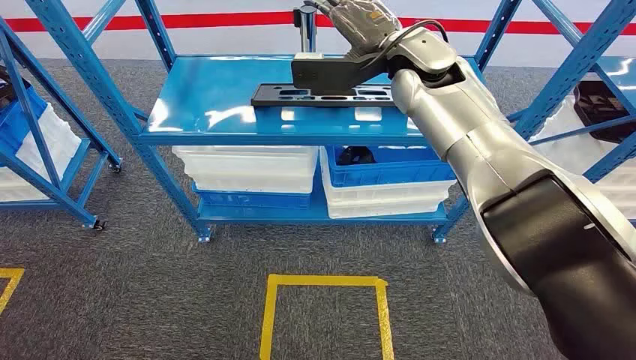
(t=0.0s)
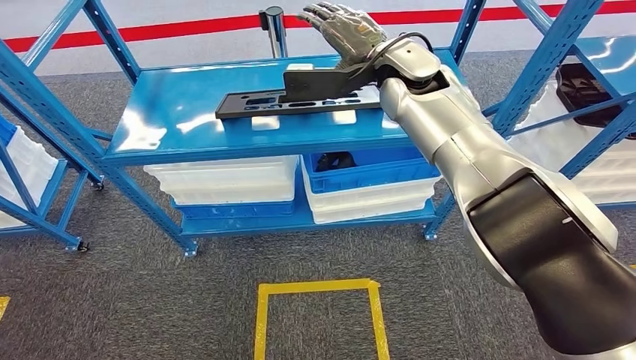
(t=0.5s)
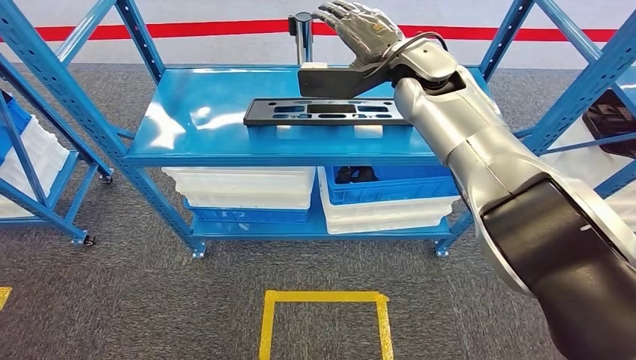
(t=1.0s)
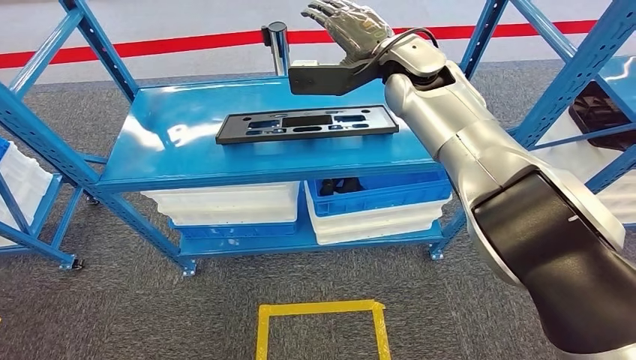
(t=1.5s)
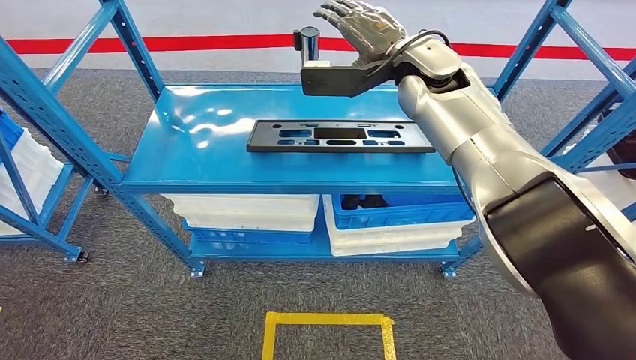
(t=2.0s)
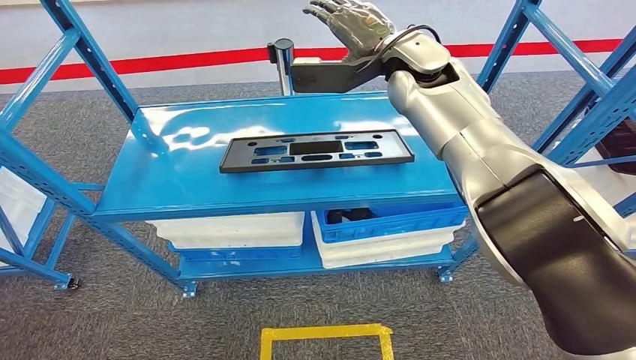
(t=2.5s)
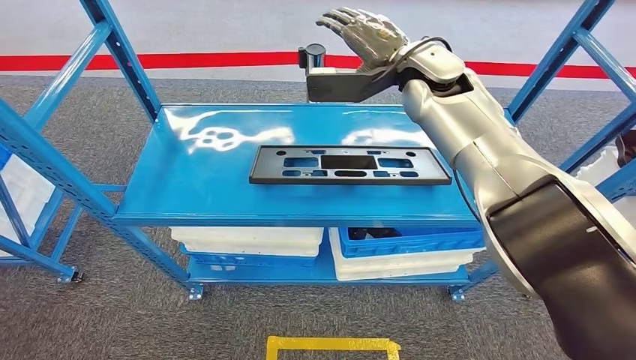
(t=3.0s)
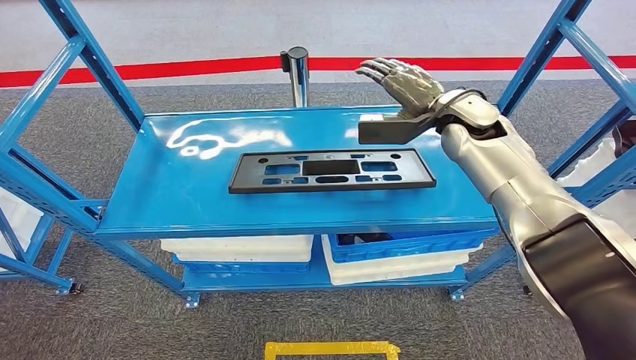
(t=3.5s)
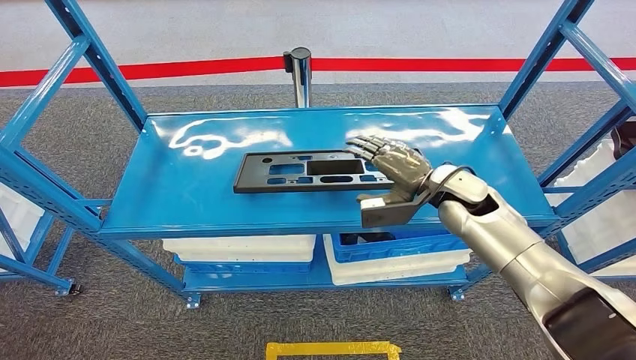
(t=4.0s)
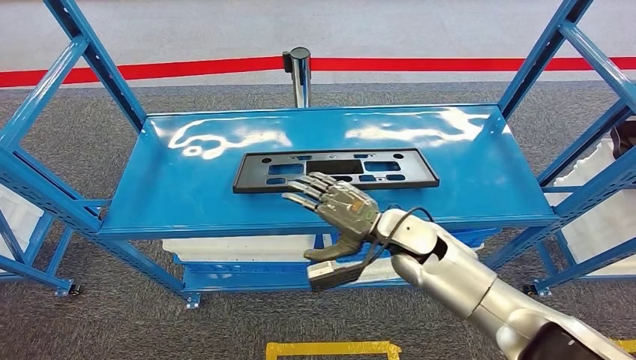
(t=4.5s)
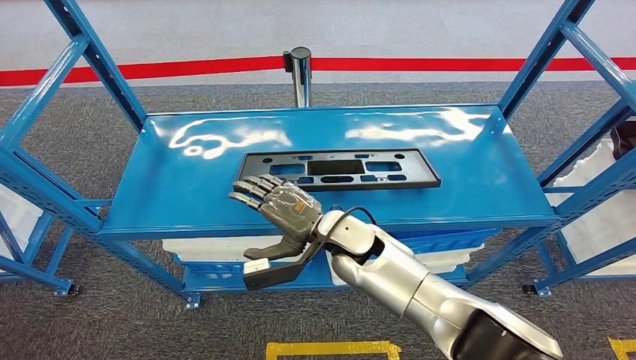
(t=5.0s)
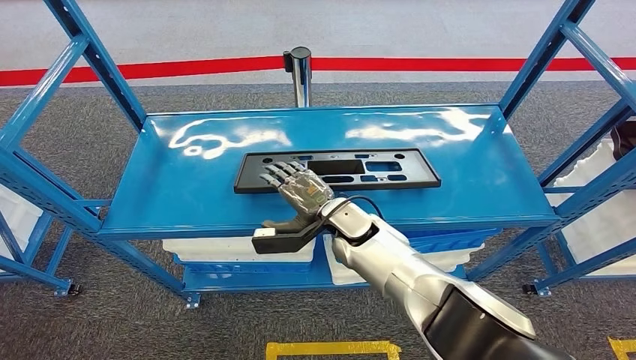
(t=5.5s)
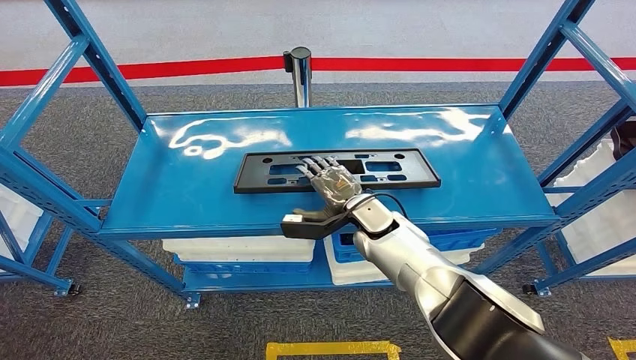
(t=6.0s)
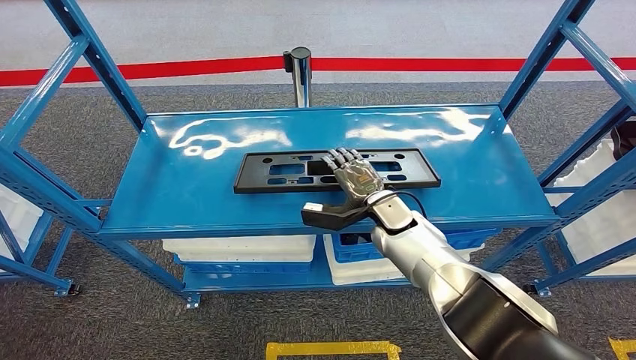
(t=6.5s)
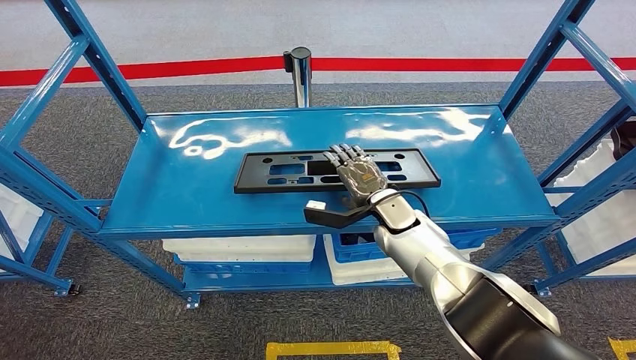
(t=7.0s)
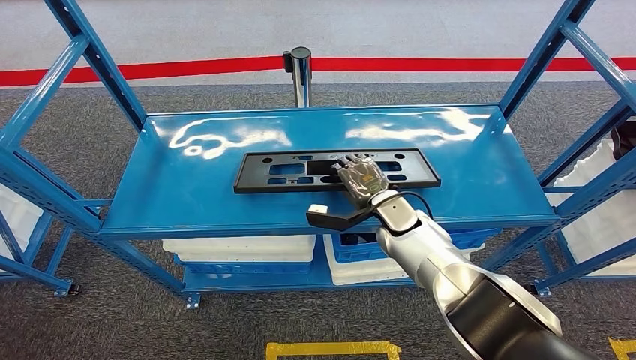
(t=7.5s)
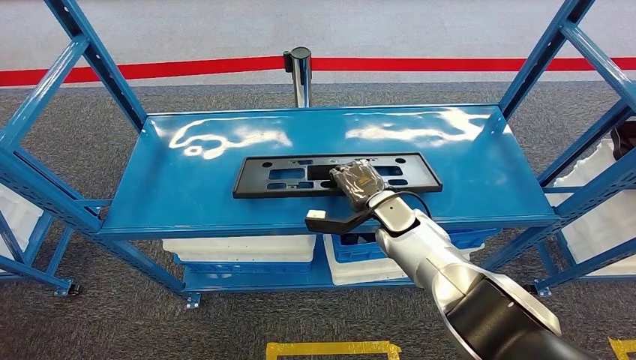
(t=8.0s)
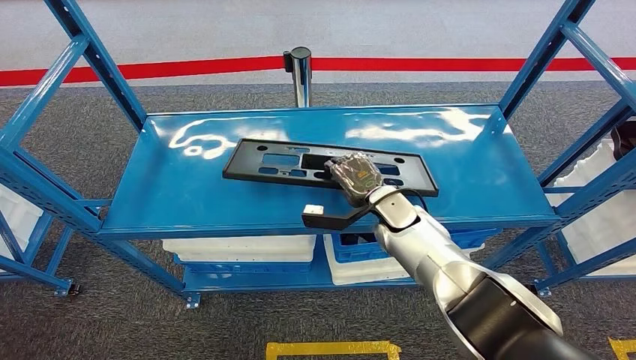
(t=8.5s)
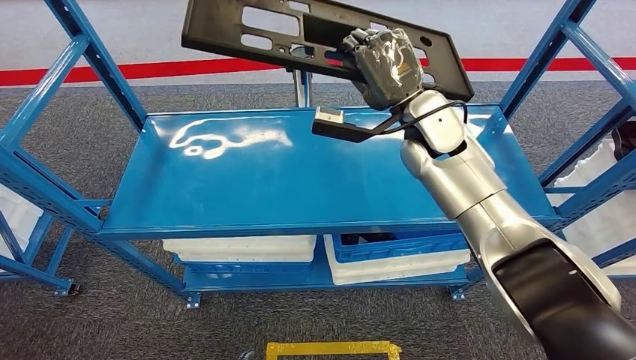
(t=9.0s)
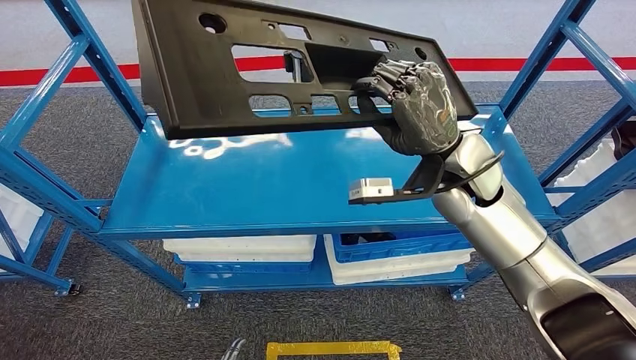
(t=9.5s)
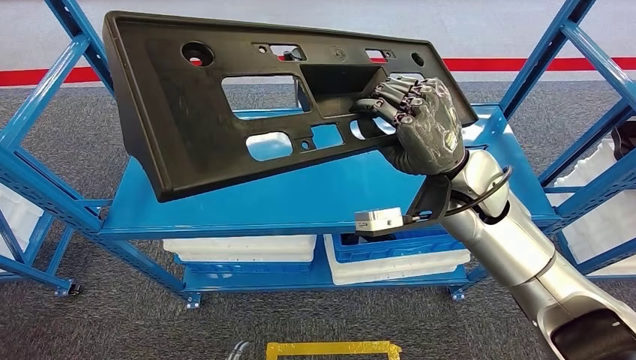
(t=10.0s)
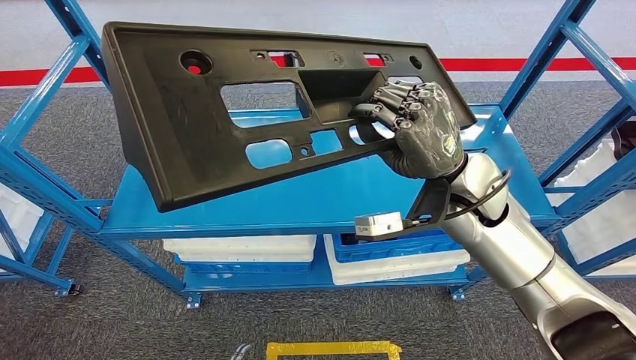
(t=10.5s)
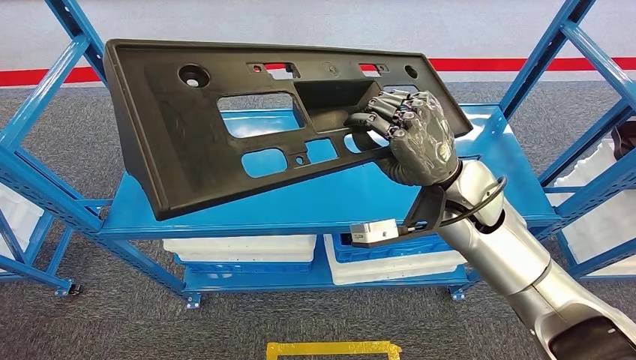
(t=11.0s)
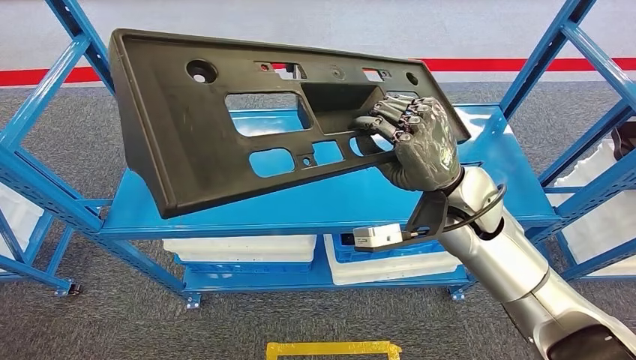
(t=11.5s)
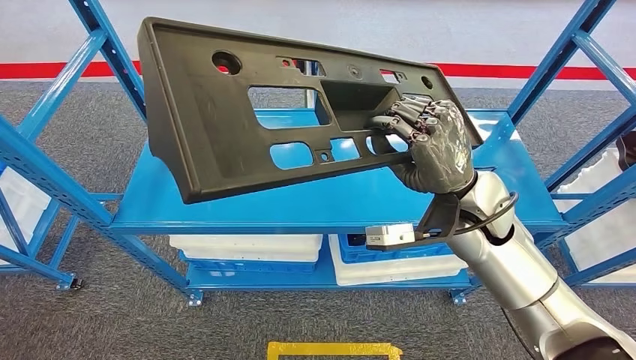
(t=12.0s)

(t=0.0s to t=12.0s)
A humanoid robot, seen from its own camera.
Step, t=0.0s - t=9.0s: Pick up the large material from the shelf.
t=4.0s - t=6.0s: The right hand shifts about 15 cm to the left and downward.
t=6.0s - t=8.0s: The right hand ends up approximately 5 cm from where it was.

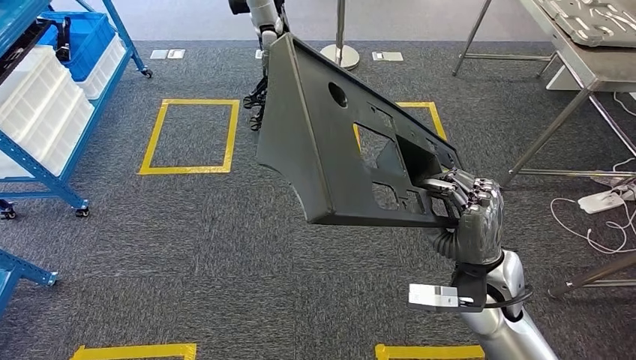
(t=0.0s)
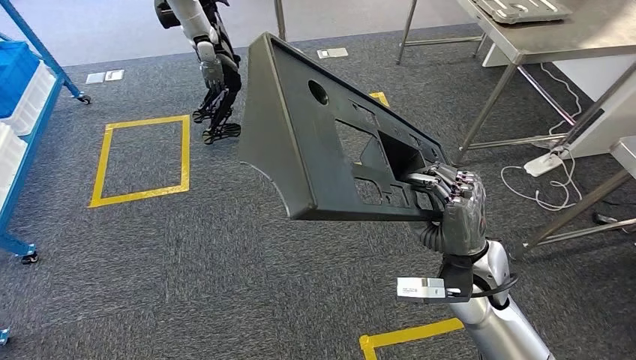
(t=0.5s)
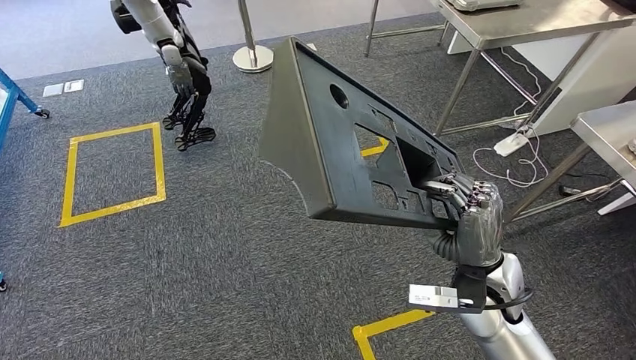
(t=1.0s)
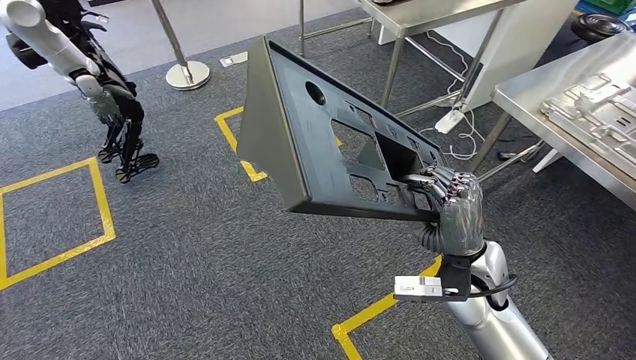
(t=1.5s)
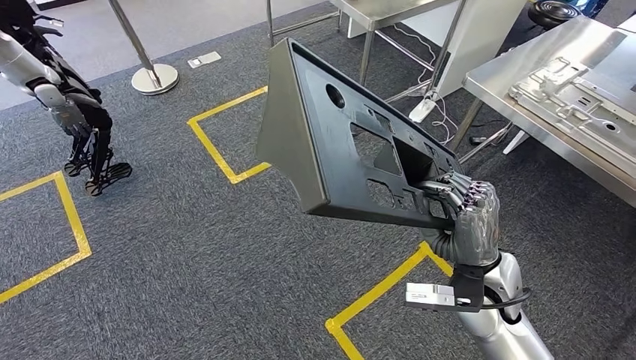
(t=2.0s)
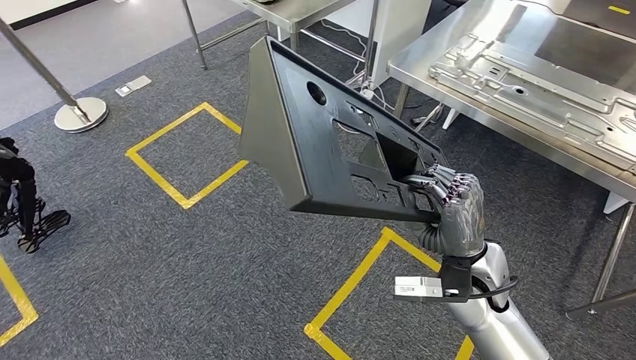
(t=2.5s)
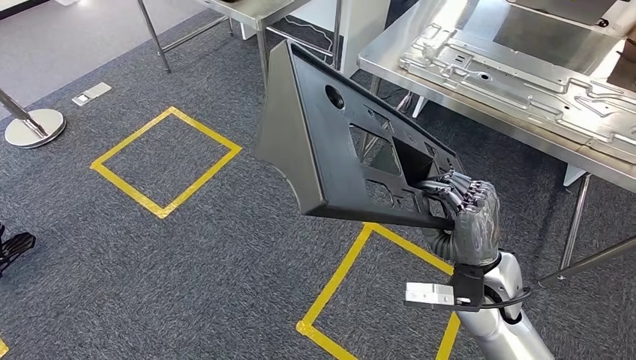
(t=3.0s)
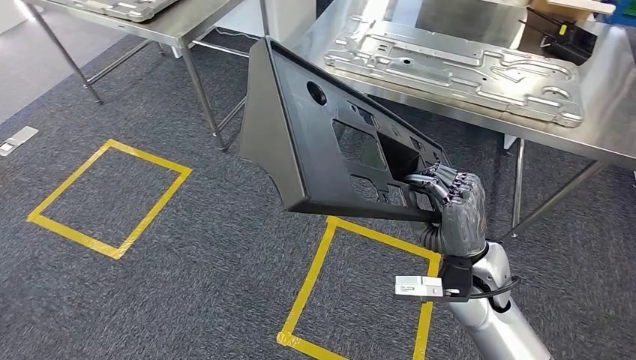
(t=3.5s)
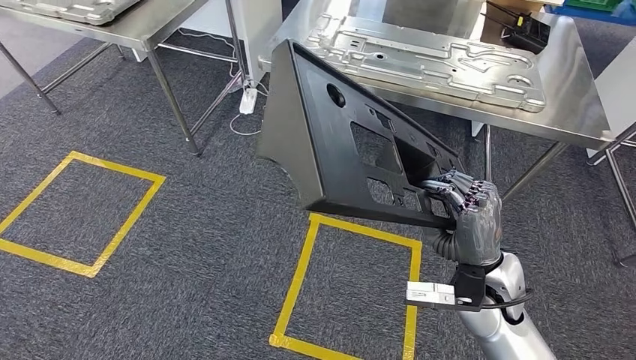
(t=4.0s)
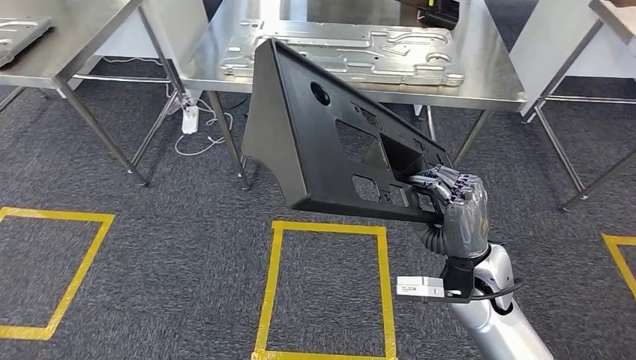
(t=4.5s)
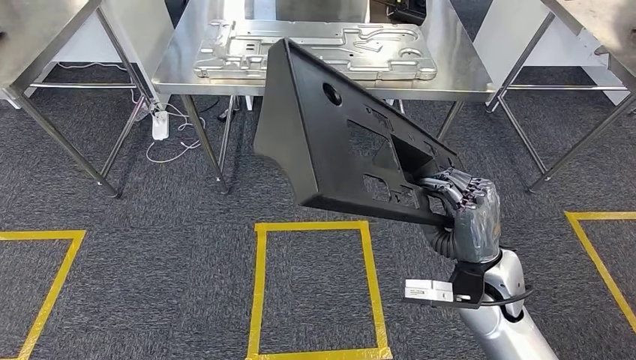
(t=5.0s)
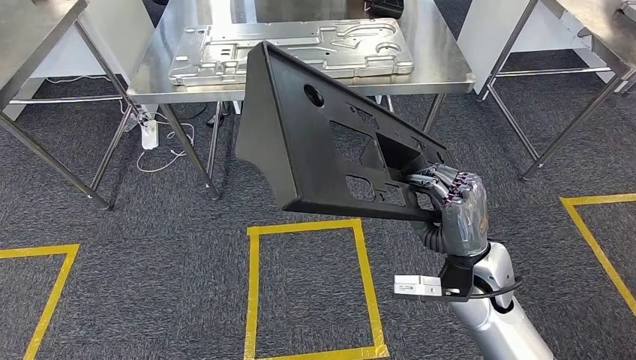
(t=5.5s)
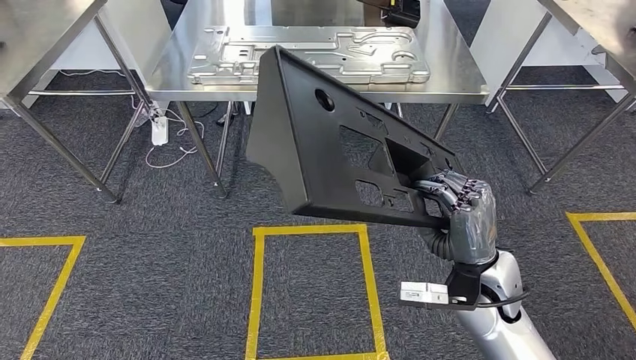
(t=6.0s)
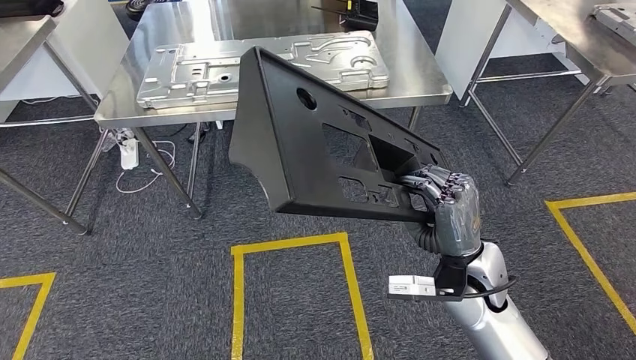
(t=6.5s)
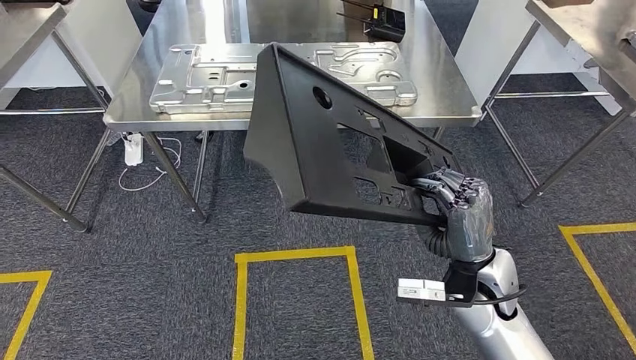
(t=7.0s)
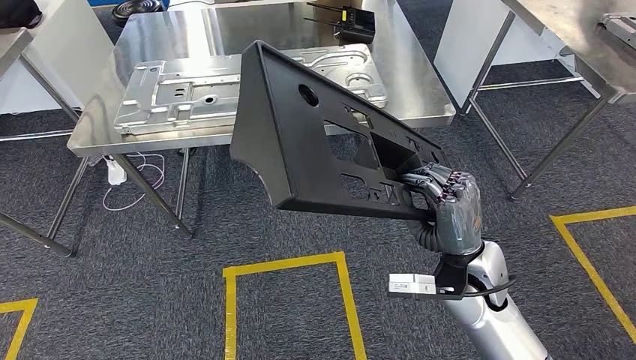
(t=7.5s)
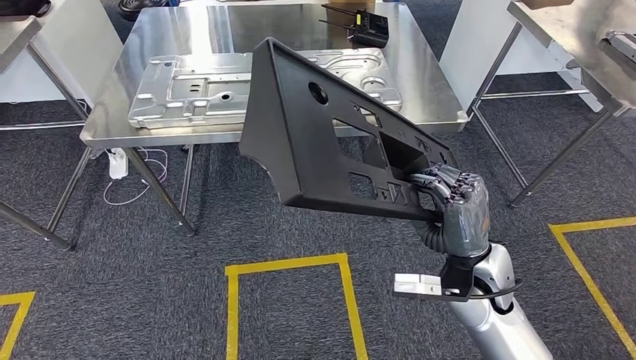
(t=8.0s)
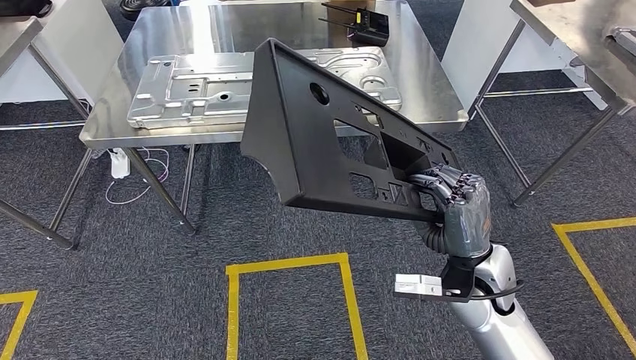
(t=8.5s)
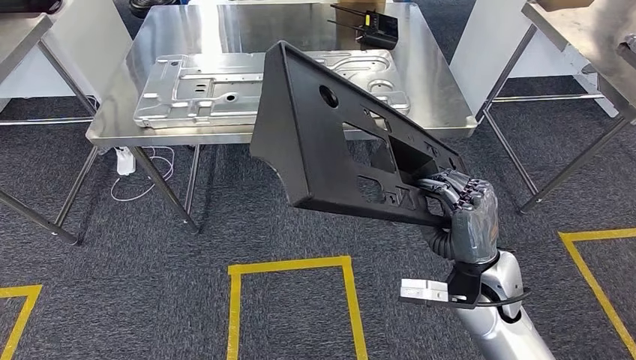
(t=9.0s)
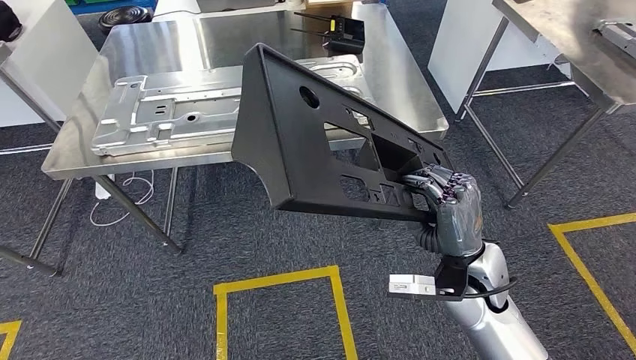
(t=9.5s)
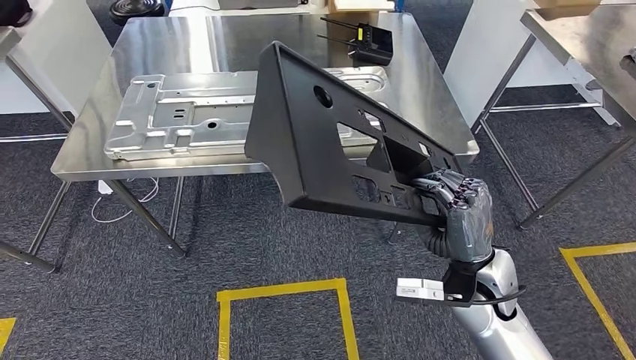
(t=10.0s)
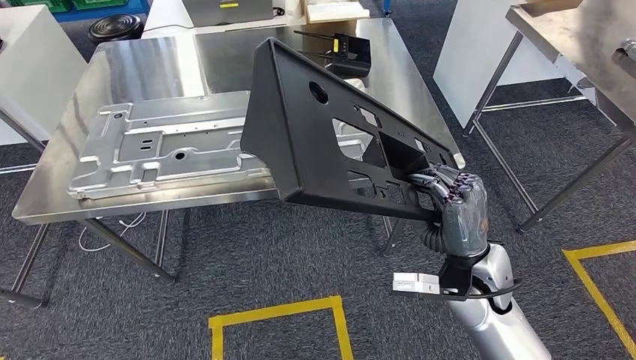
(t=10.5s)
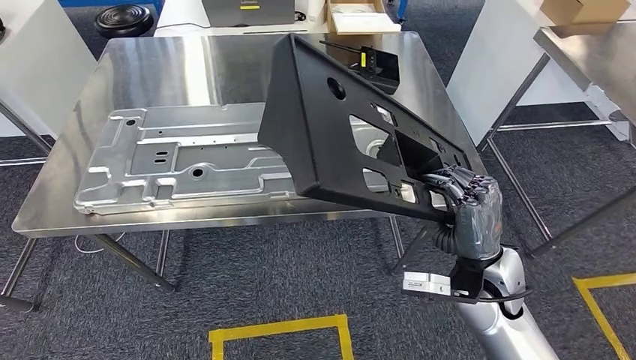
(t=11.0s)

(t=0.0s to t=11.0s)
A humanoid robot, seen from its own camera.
Step, t=0.0s - t=8.0s: Move the large material to the workbench.
